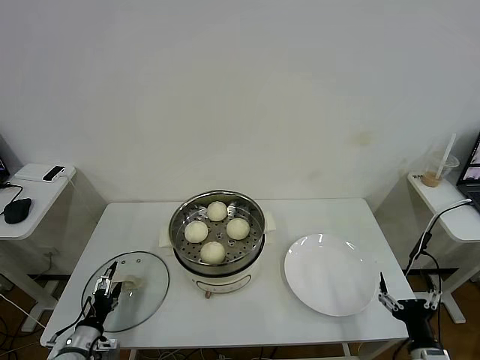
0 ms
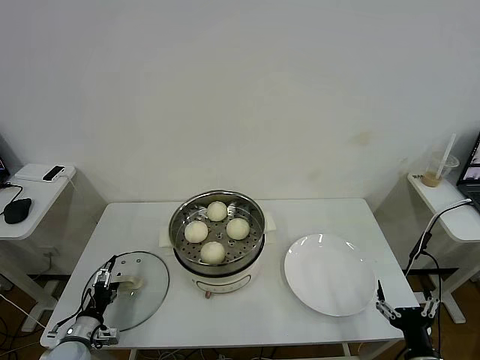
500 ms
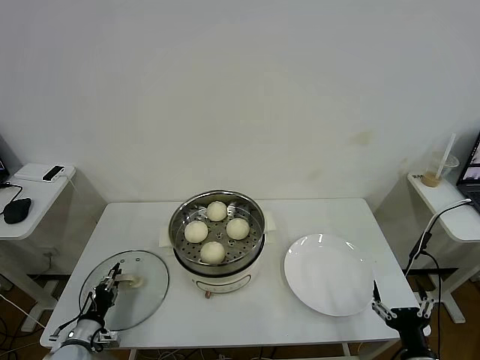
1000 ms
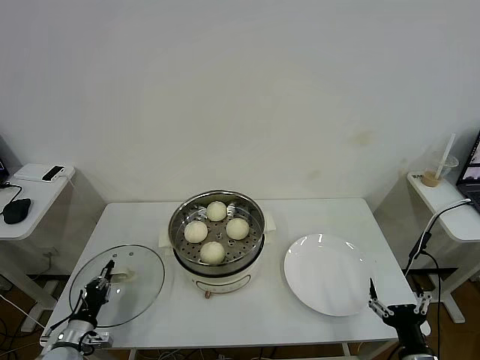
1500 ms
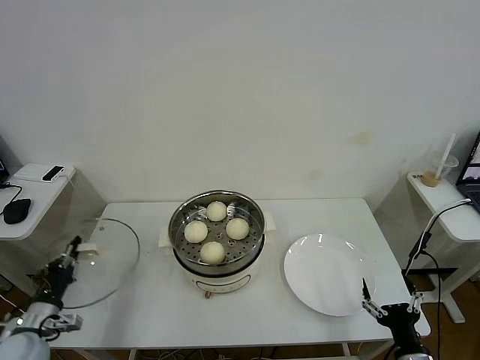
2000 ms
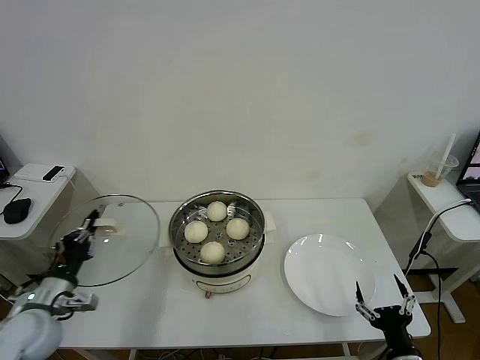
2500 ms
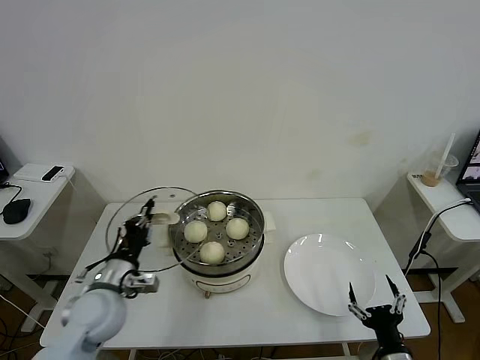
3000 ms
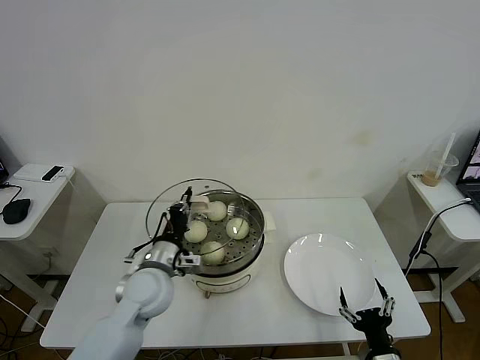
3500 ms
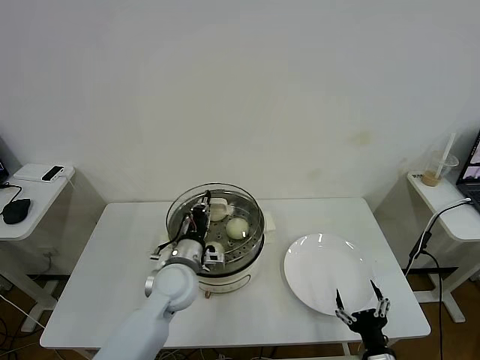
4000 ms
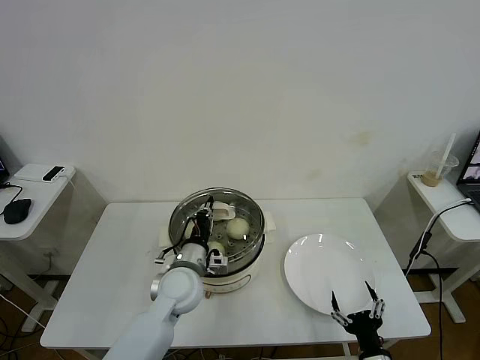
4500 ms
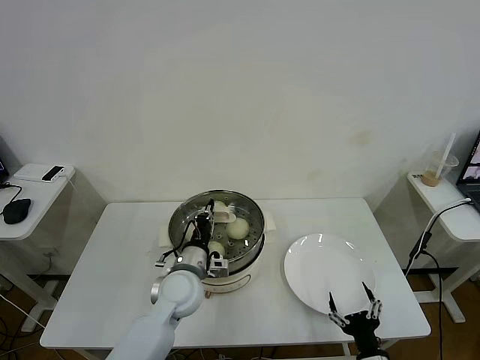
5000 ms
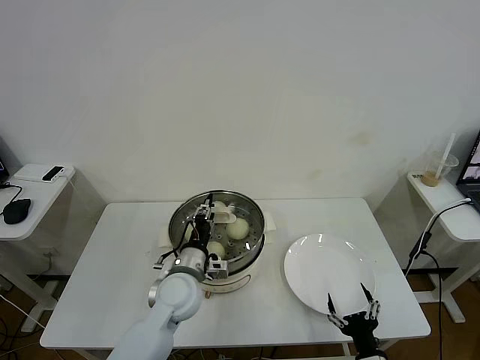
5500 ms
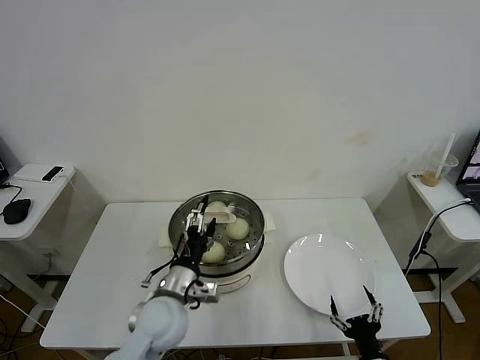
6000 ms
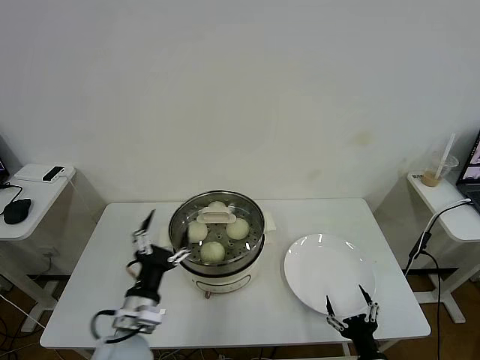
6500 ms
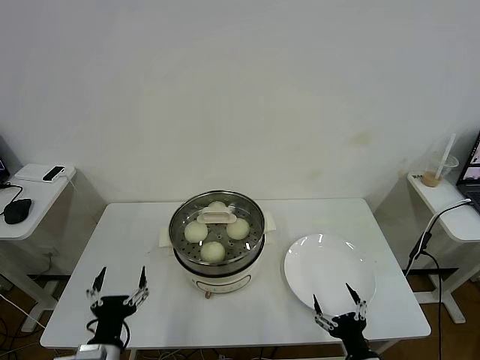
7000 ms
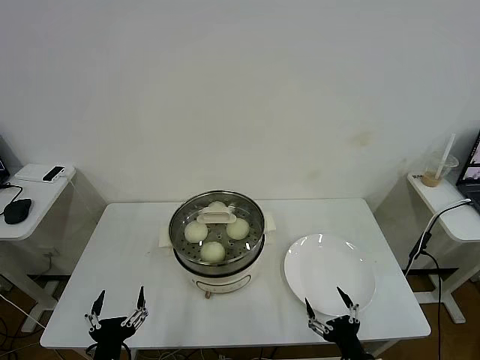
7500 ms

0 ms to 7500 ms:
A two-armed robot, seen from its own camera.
Task of the whole recording: take steamed baozi put them in steamer then cover it.
Step, 1500 ms to 6000 ms: Place the pot lid on the steamer with left gripper.
0 ms to 2000 ms: The left gripper shifts about 10 cm upward, and closes.
2000 ms to 4000 ms: The left gripper shifts roughly 35 cm to the right and forward. Meanwhile the right gripper shifts by roughly 5 cm.
4000 ms to 5500 ms: The grippers move only a little.
5500 ms to 7500 ms: The left gripper heads backward and to the left, covering some 25 cm, and opens its fingers.
